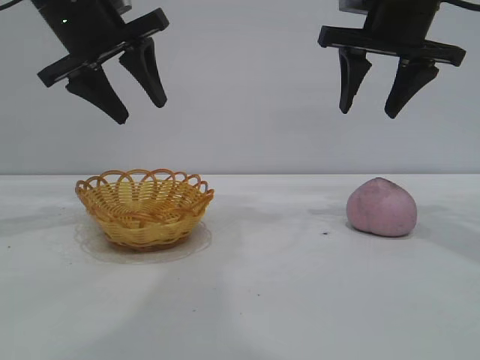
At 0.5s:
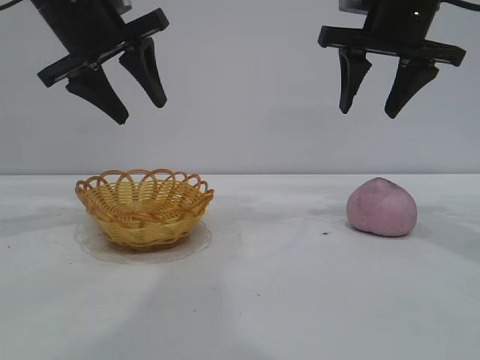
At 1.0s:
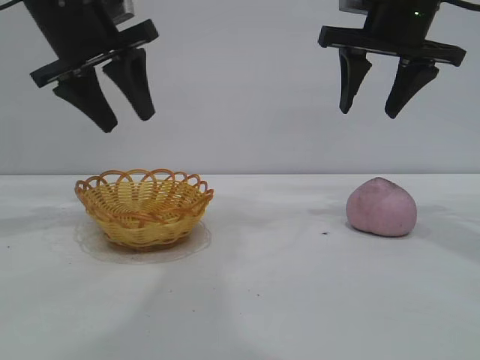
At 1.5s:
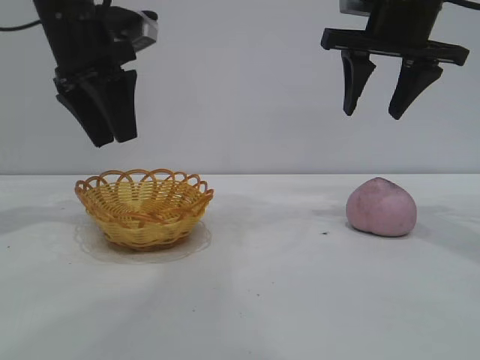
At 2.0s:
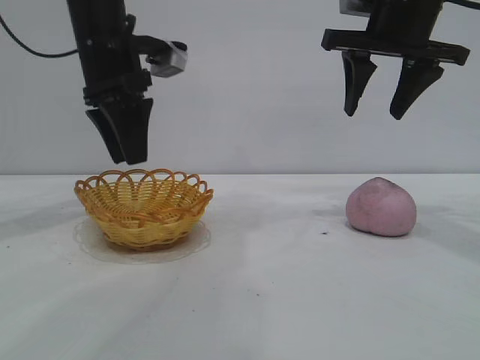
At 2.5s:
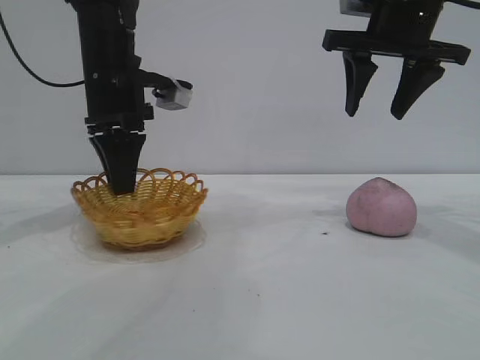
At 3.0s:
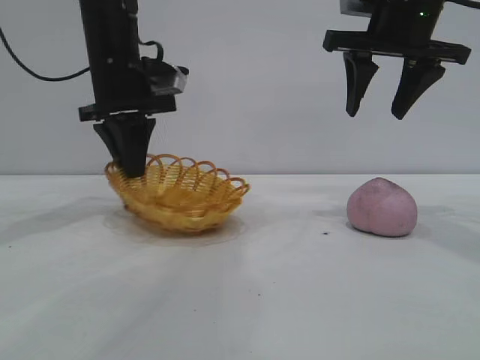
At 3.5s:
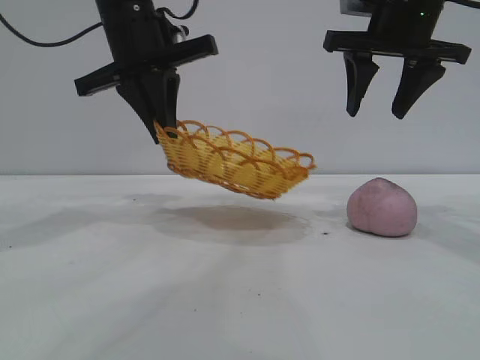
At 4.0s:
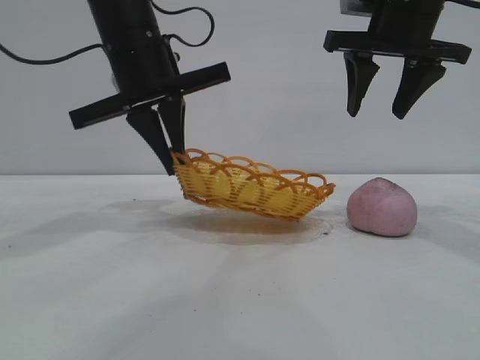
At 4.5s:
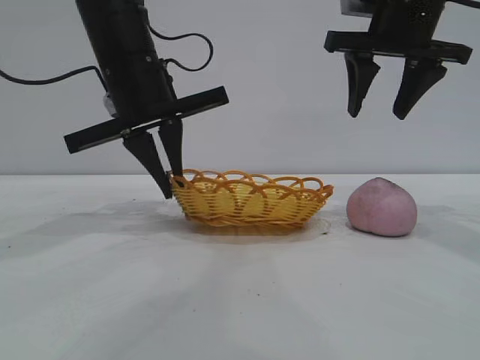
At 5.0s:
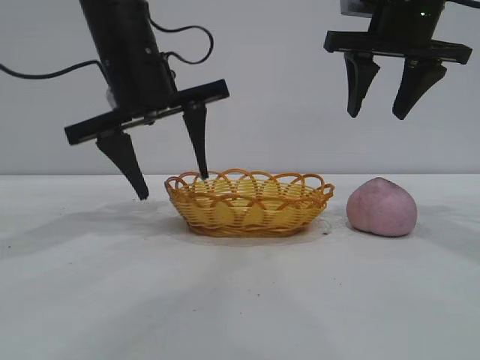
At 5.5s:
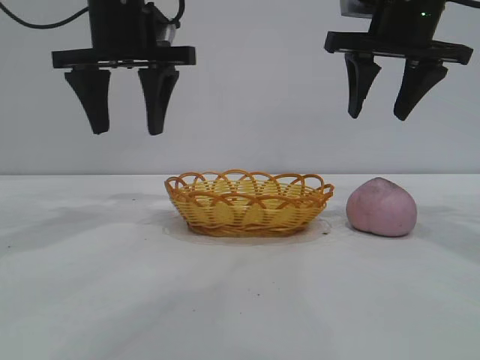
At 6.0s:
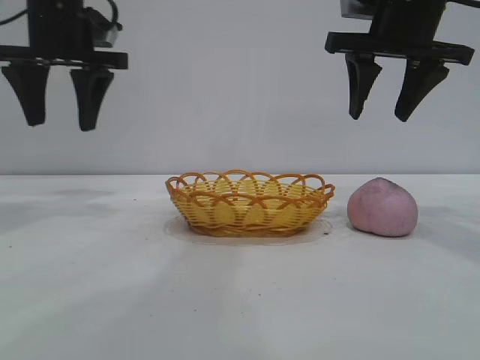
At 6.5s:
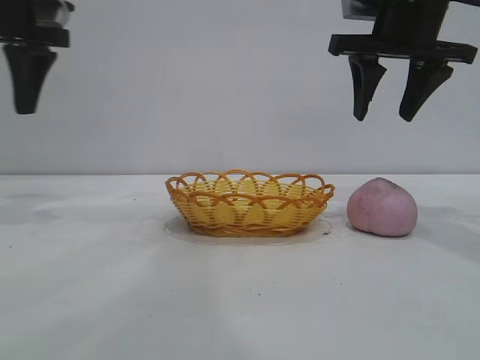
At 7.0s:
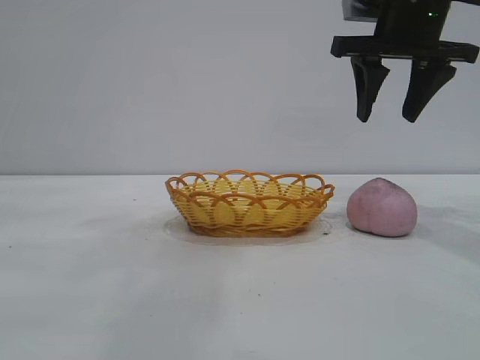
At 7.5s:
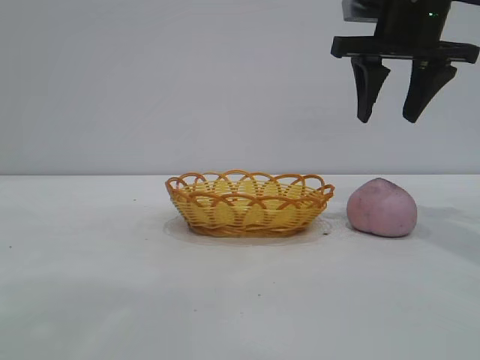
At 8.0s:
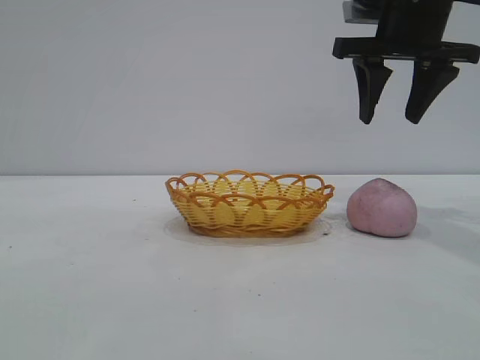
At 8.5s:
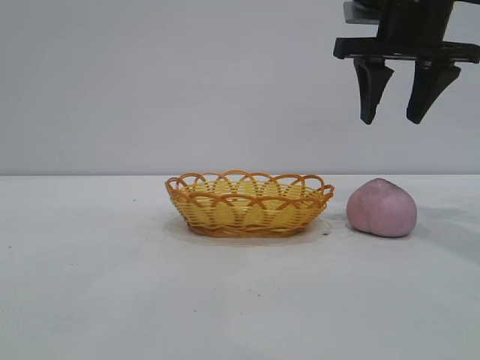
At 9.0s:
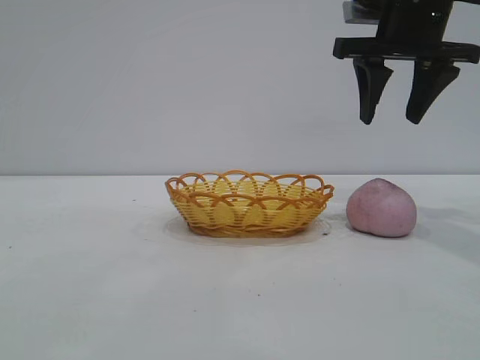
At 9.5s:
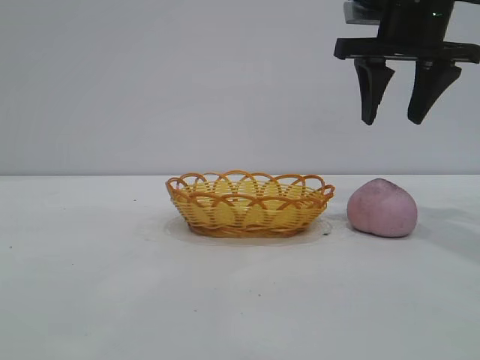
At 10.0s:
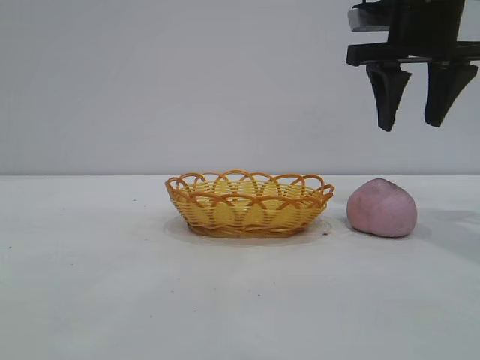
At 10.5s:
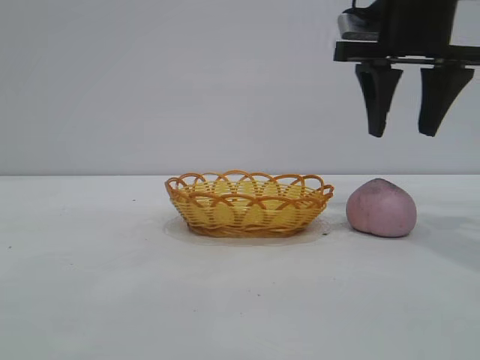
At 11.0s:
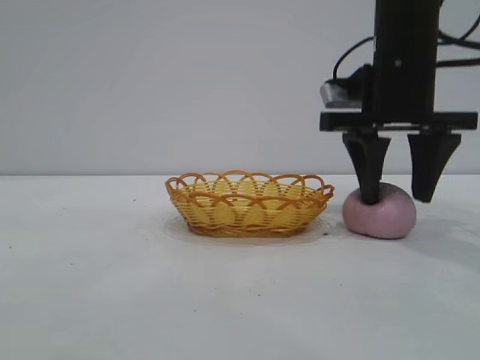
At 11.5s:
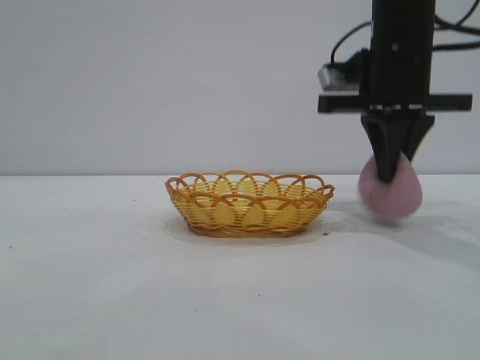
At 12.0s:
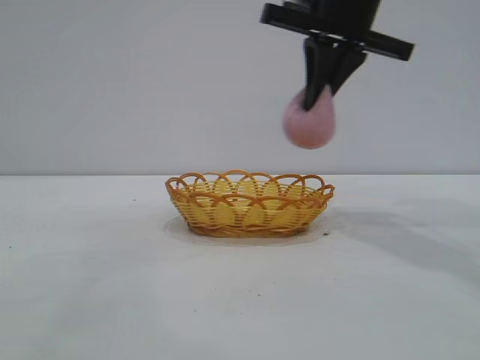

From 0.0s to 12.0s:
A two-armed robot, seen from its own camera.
Task of the whole recording: pick up the peach and put it into the basket.
Step, from 0.0s to 5.0s: Move the basket to the center of view.
Step, from 5.5s to 11.5s: Pick up the peach.
